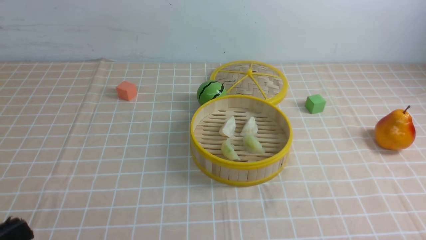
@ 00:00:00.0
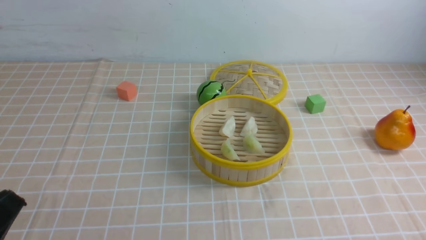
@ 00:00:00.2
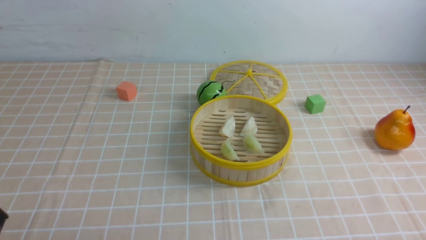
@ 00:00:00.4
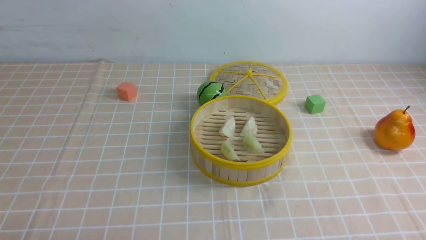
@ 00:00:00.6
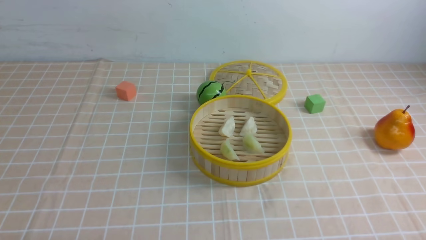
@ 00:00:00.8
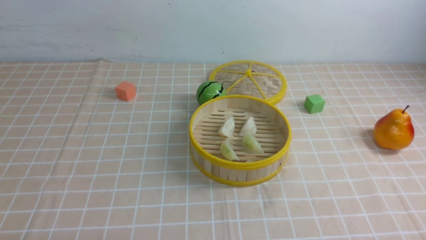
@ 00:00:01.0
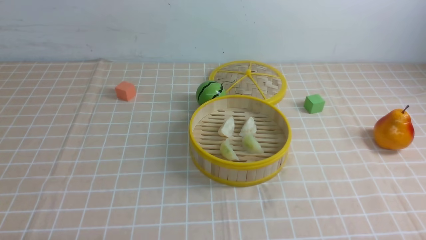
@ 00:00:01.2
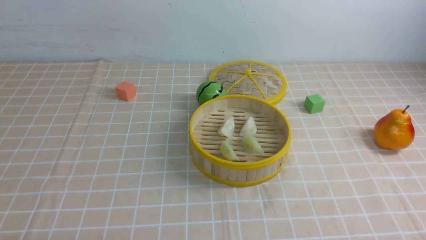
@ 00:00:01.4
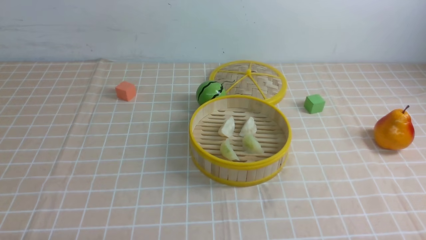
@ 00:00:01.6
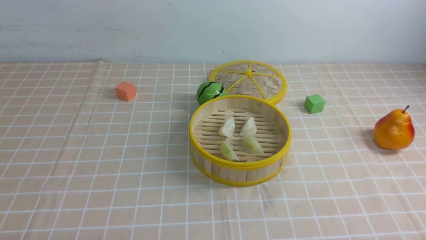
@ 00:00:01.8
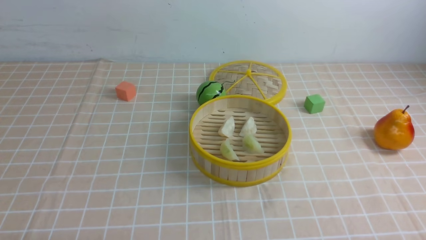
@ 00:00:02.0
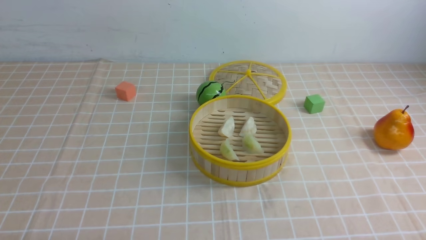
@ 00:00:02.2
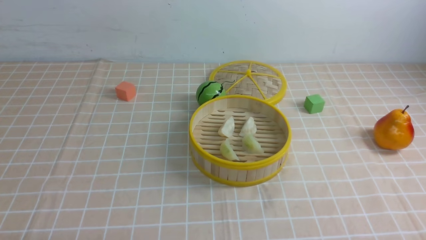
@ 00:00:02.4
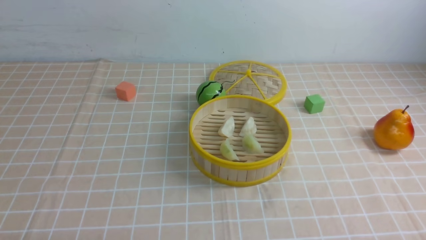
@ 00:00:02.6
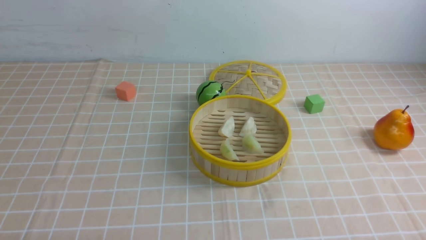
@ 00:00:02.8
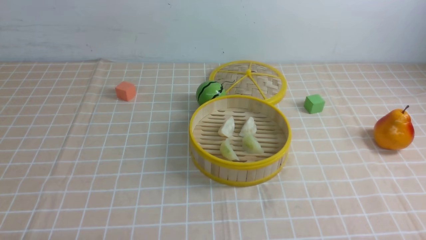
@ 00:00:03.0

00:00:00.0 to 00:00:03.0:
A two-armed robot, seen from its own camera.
Task of the whole recording: put the dumplings into the steamer on the table with the brown tablecloth.
00:00:00.0 to 00:00:01.6: The left gripper goes some 10 cm downward.
00:00:01.6 to 00:00:03.0: Neither gripper changes place.
